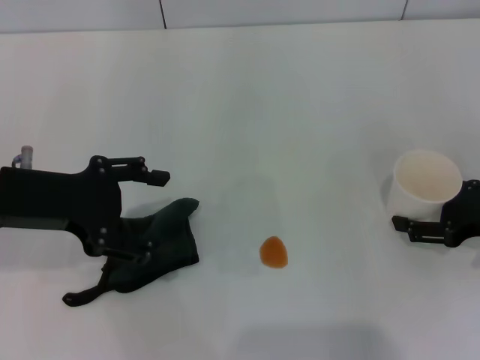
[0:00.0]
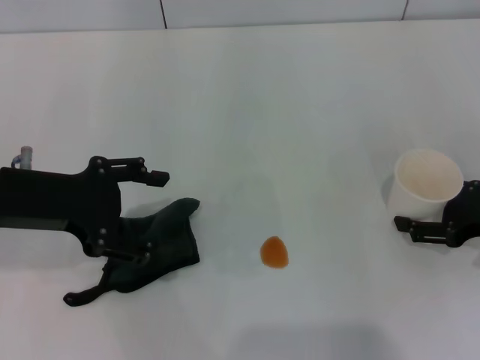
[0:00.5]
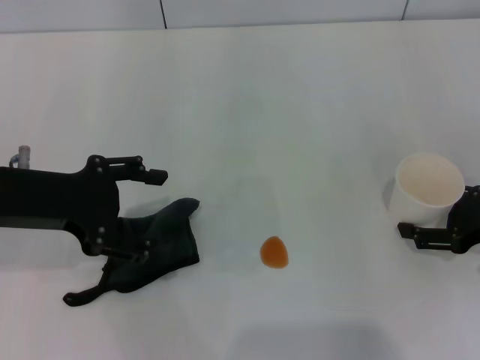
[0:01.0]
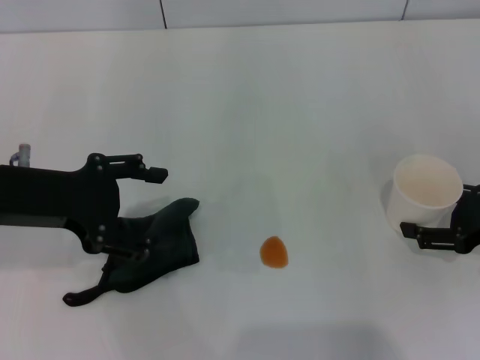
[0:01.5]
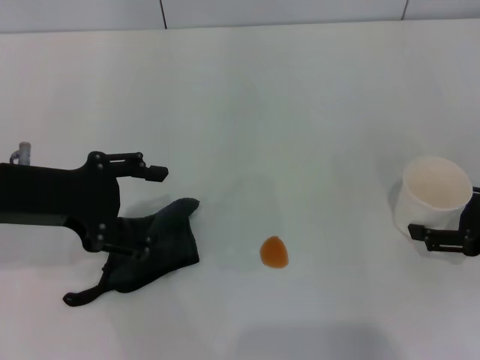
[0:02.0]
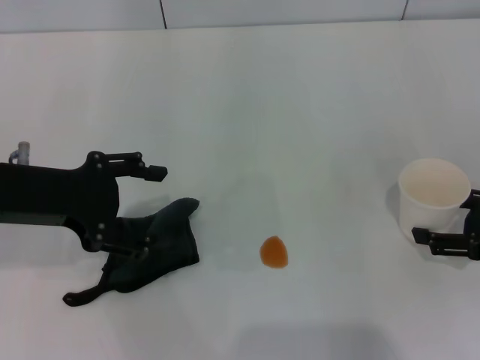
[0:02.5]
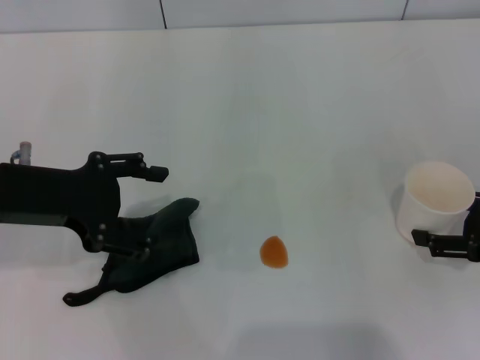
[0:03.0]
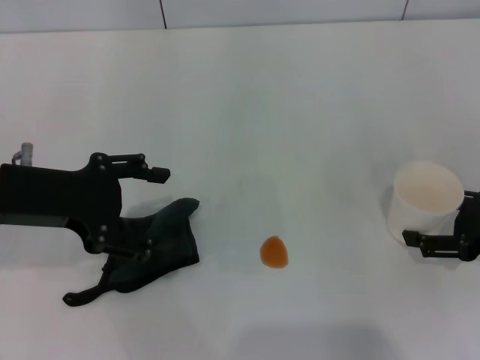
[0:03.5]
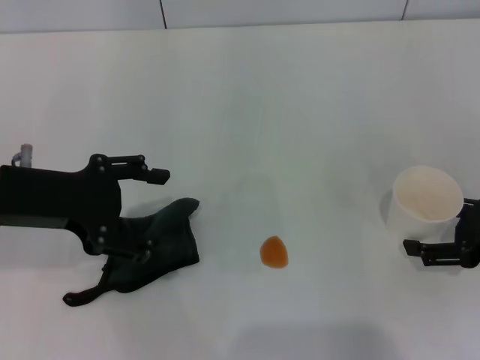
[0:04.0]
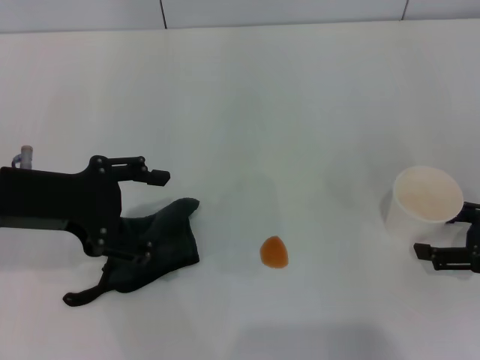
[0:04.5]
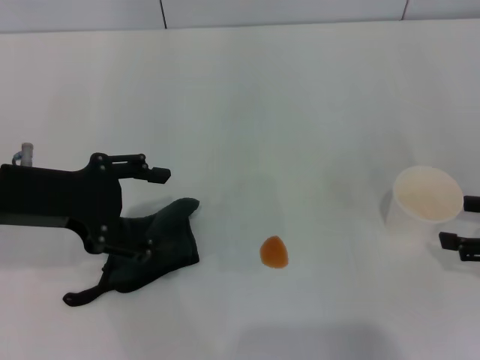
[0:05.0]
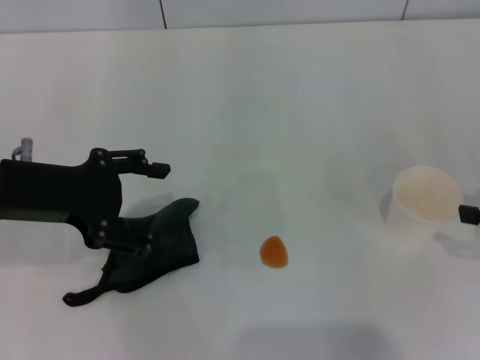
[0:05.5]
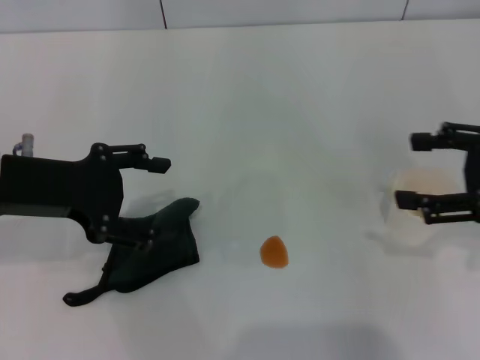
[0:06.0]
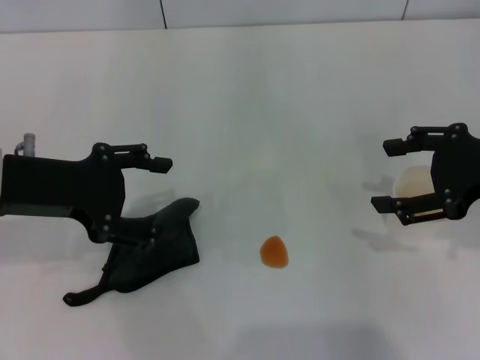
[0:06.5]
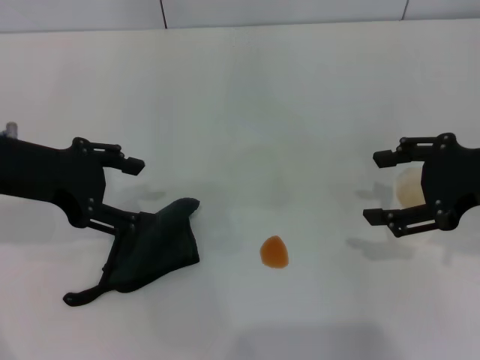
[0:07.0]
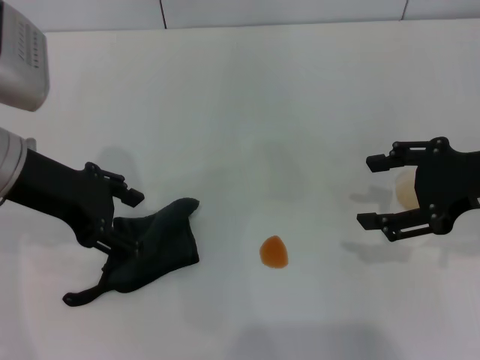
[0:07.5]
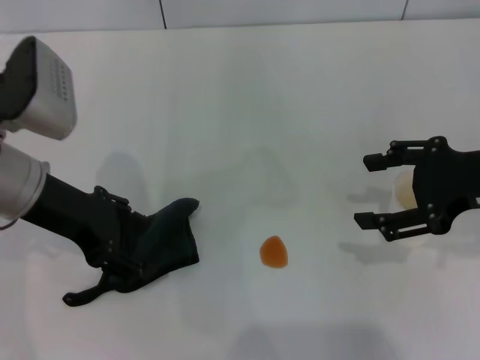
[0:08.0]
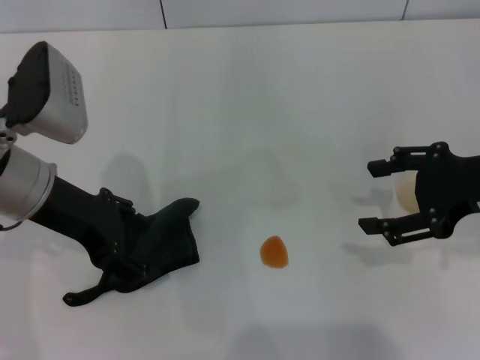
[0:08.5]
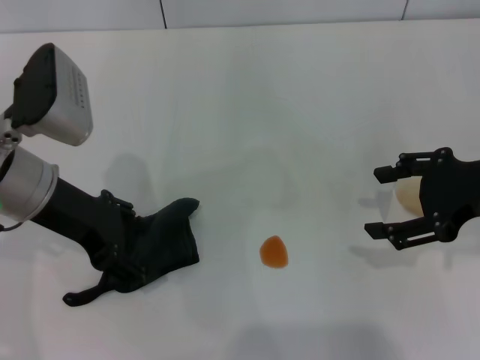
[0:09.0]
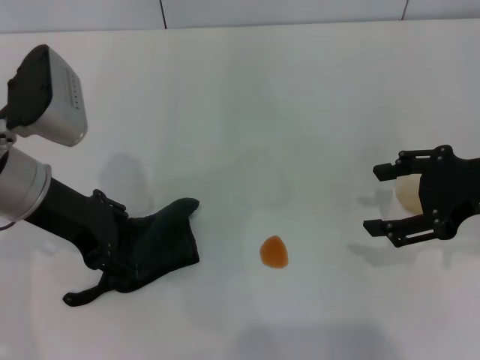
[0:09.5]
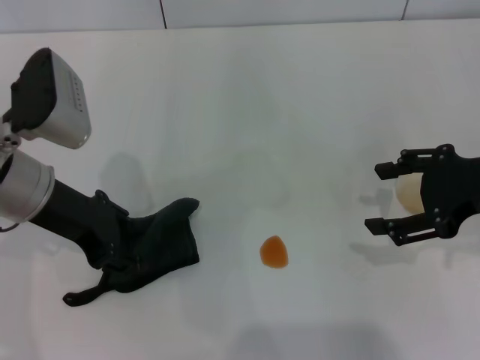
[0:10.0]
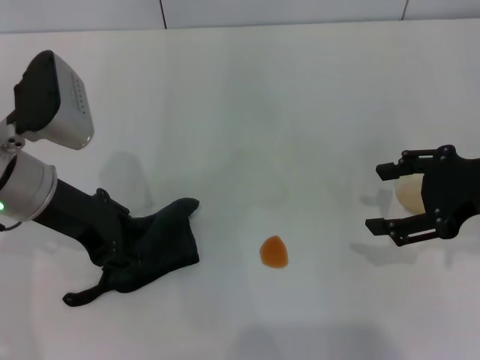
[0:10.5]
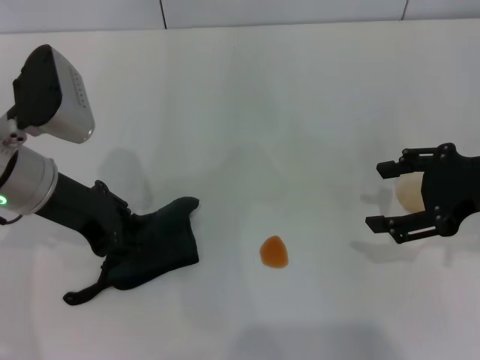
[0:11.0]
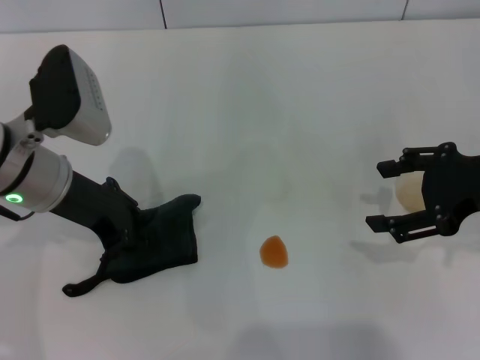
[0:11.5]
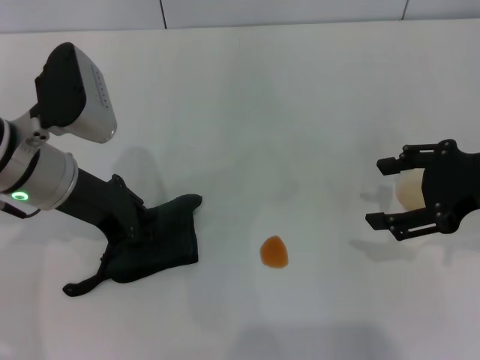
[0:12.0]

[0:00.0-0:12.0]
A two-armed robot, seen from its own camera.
Step, 0:00.0 to 0:04.5: Stand the paper cup upright with the right gripper.
0:00.0 to 0:02.0: The grippers make only small movements.
0:02.0 to 0:04.0: Both grippers stay put.
0:04.0 to 0:06.0: The right gripper moves upward, about 10 cm.
0:08.0 to 0:10.0: The left gripper closes its fingers.
0:10.0 to 0:12.0: The left gripper closes.

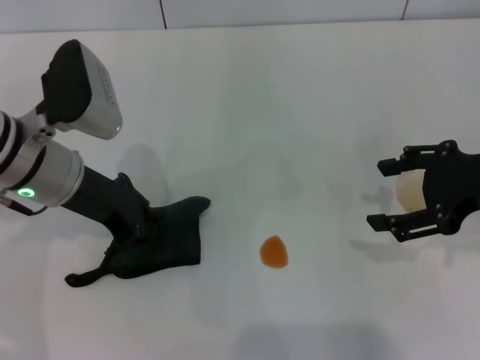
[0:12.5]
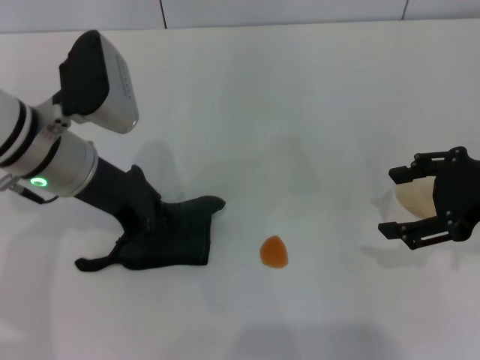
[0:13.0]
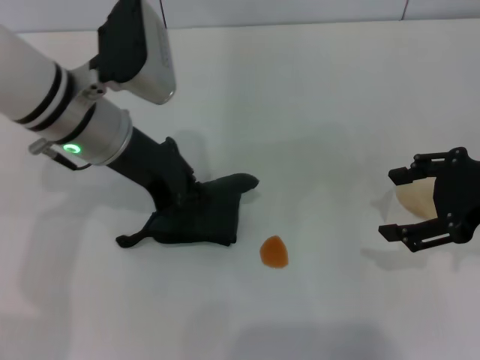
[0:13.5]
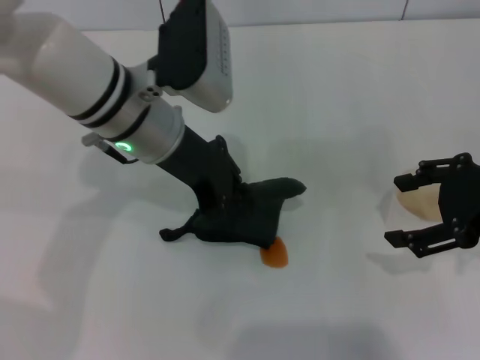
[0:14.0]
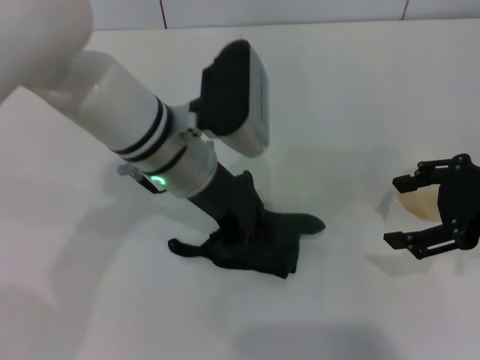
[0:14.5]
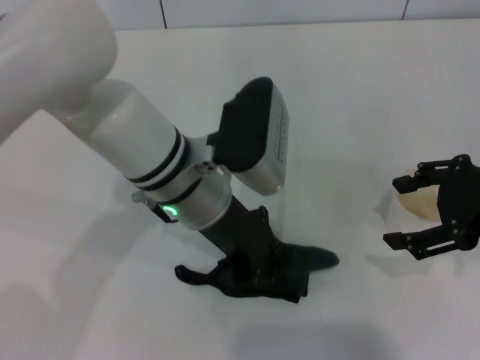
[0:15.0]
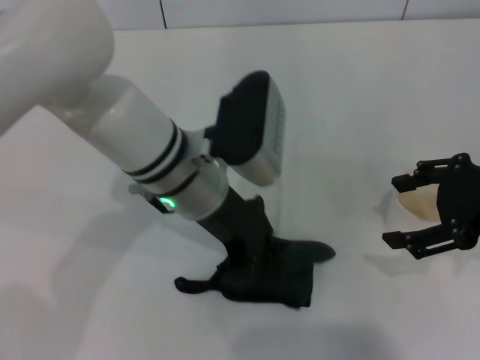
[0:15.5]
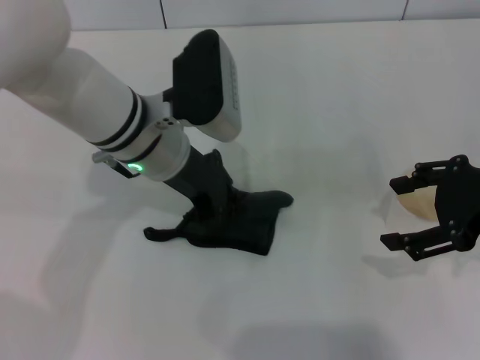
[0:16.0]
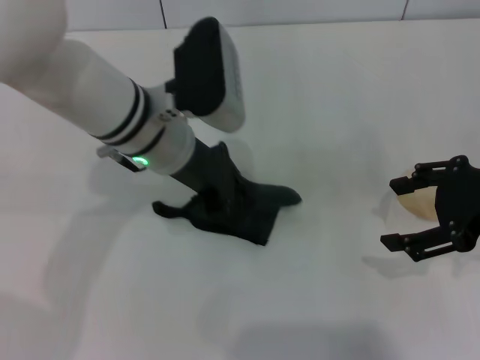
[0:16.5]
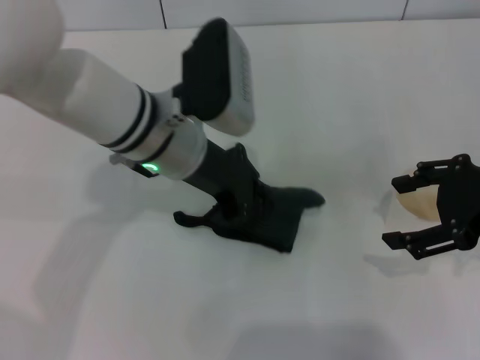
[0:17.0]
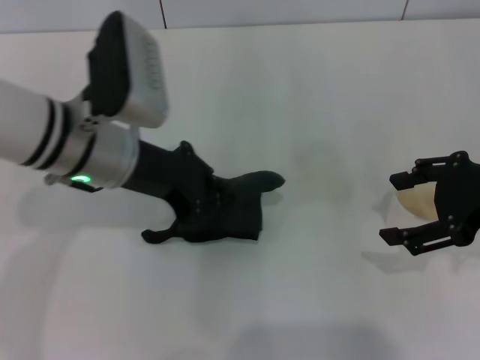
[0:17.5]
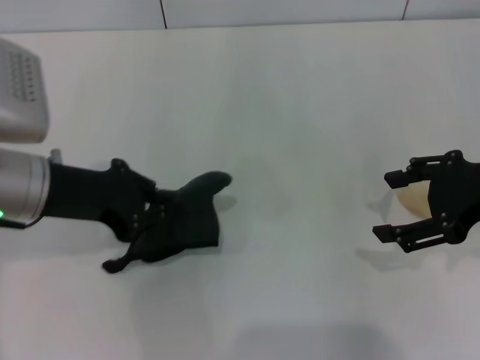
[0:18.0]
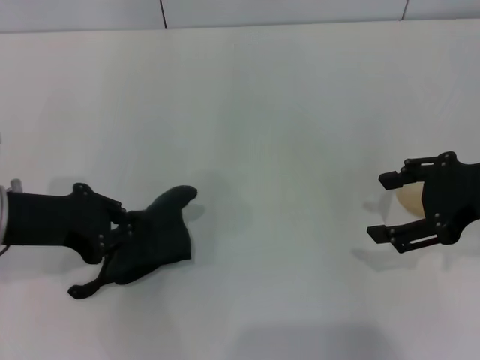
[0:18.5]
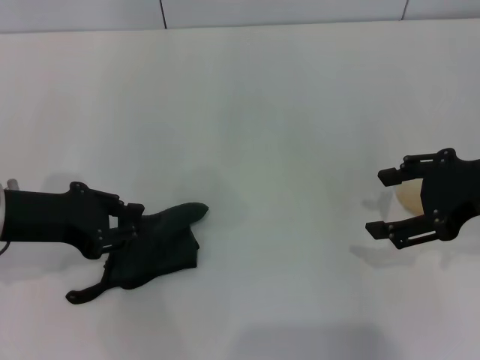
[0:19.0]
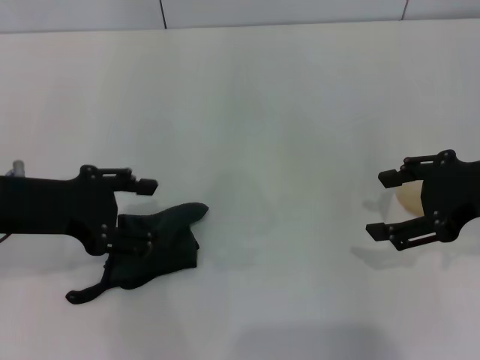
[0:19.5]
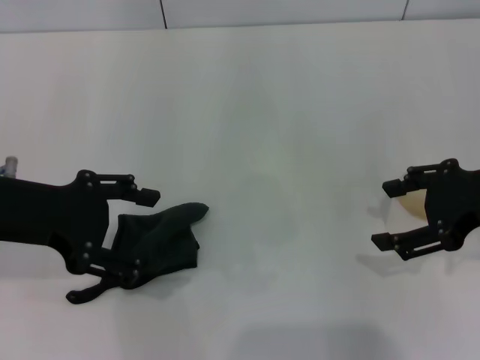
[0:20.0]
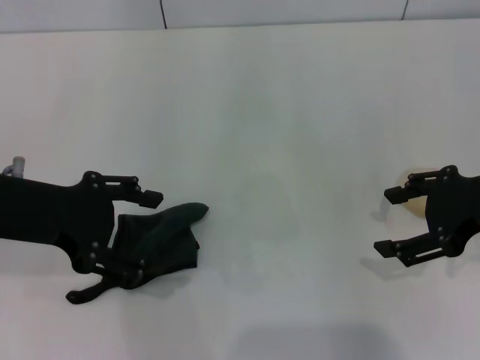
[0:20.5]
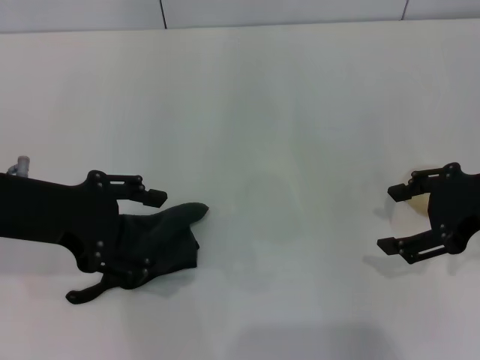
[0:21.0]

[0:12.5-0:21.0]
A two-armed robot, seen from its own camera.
Step, 0:13.5 to 0:17.0: Wipe the stains off the table with the left gripper.
Step, 0:17.5 to 0:19.0: Place the rag on the table with the left gripper.
0:12.5 to 0:14.5: The left gripper goes roughly 10 cm to the right.
0:14.5 to 0:16.5: The grippers move only a little.
0:16.5 to 0:19.0: The left gripper is displaced to the left and backward by roughly 20 cm.
0:19.0 to 0:21.0: The left gripper ends up approximately 5 cm from where it was, and opens up.
